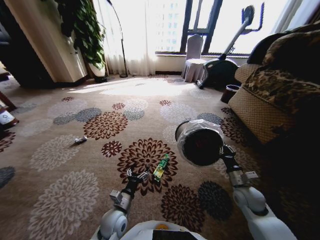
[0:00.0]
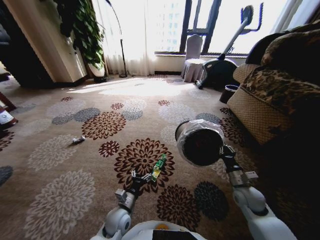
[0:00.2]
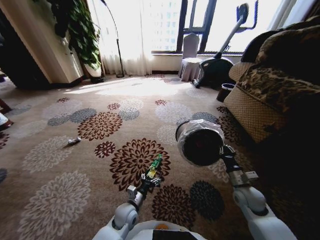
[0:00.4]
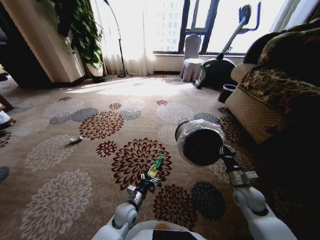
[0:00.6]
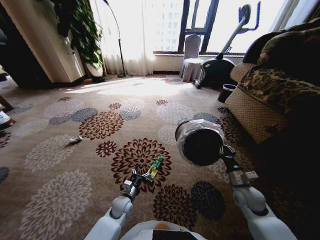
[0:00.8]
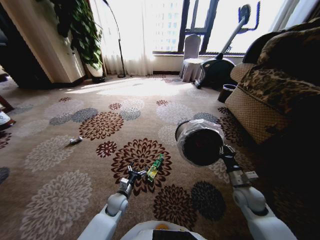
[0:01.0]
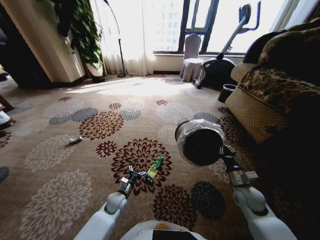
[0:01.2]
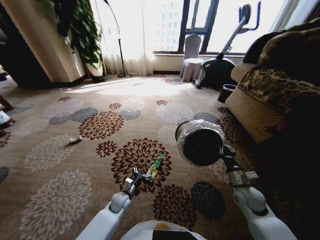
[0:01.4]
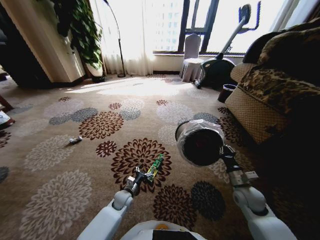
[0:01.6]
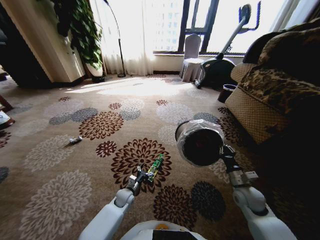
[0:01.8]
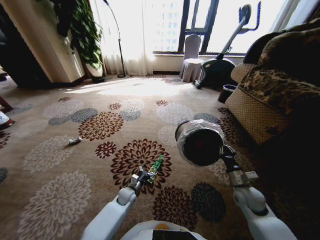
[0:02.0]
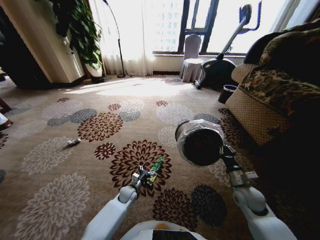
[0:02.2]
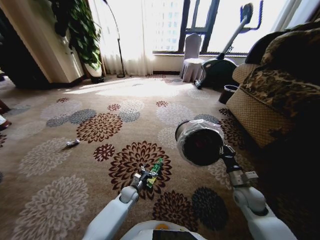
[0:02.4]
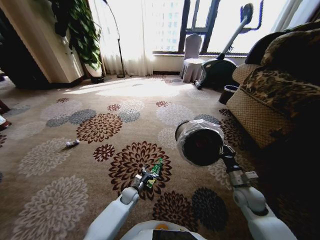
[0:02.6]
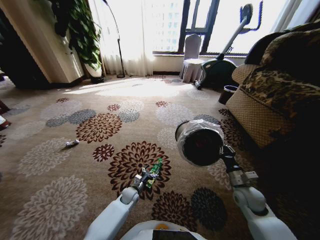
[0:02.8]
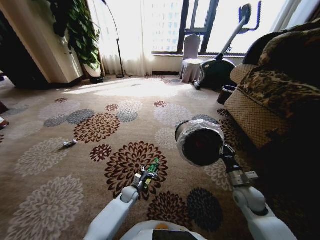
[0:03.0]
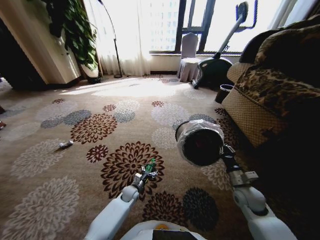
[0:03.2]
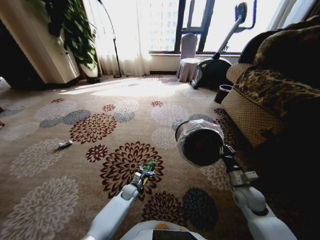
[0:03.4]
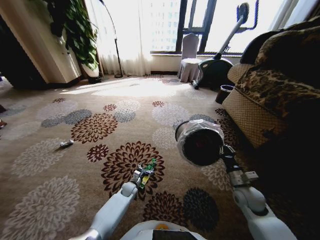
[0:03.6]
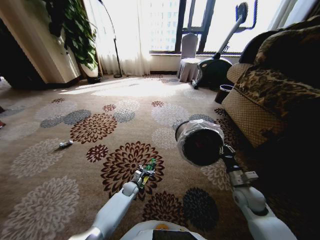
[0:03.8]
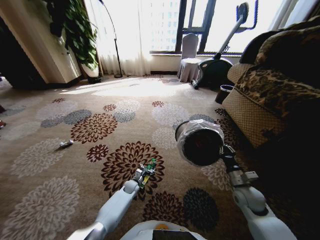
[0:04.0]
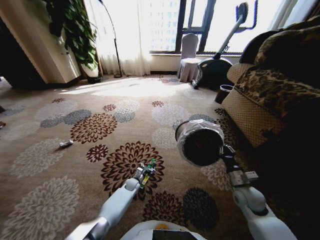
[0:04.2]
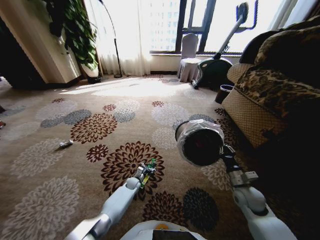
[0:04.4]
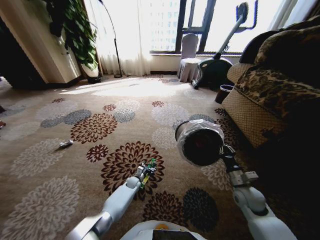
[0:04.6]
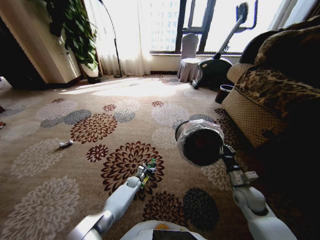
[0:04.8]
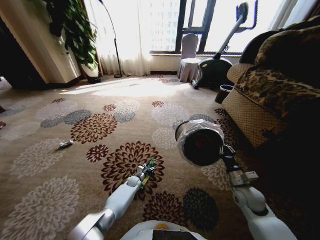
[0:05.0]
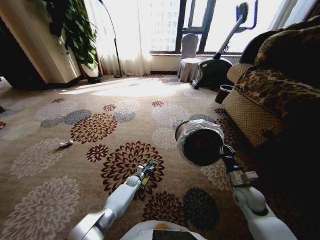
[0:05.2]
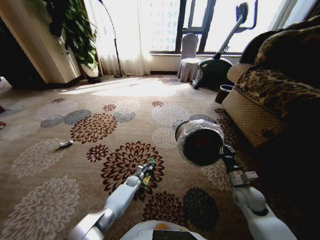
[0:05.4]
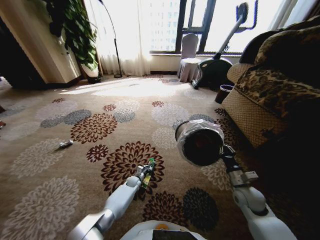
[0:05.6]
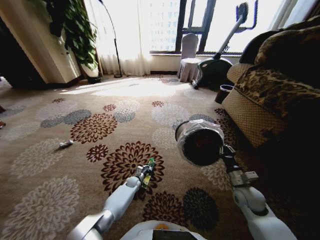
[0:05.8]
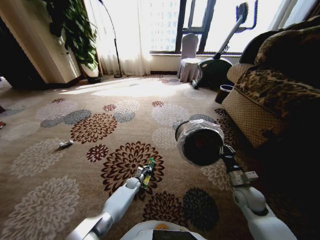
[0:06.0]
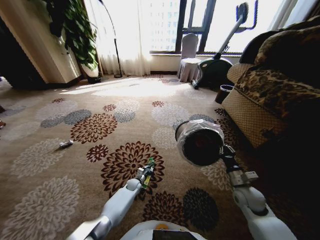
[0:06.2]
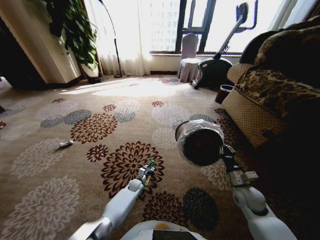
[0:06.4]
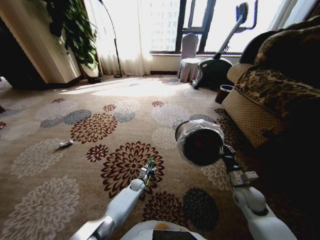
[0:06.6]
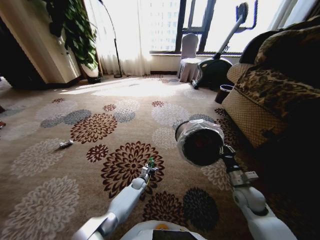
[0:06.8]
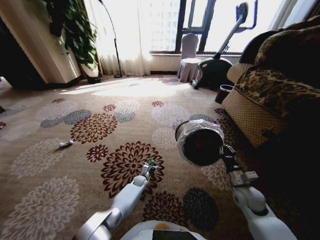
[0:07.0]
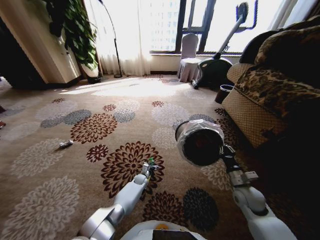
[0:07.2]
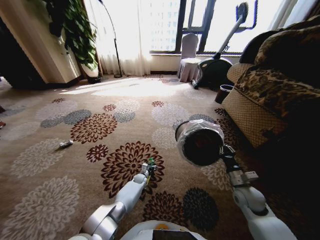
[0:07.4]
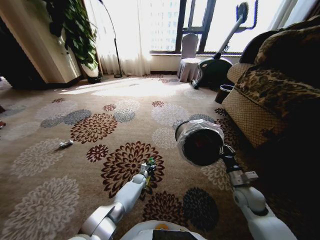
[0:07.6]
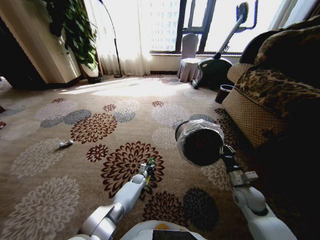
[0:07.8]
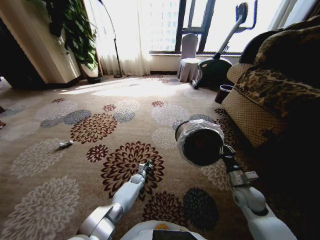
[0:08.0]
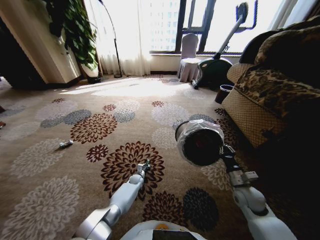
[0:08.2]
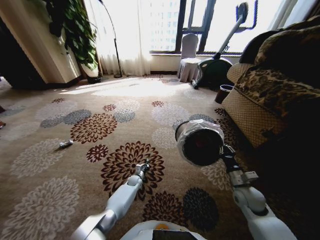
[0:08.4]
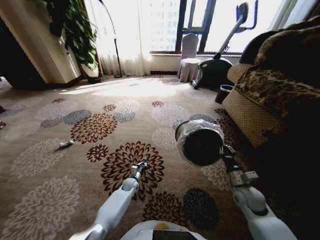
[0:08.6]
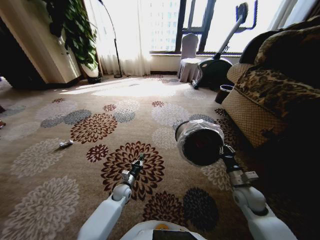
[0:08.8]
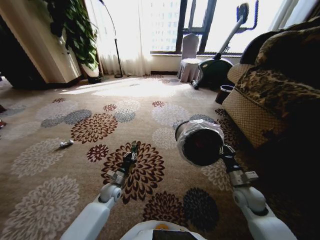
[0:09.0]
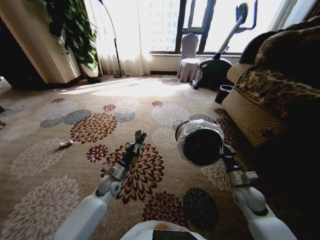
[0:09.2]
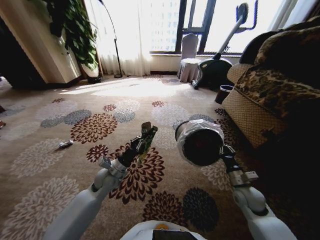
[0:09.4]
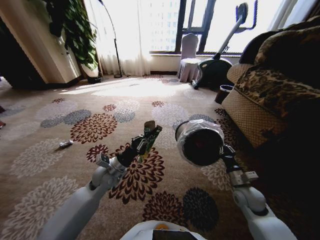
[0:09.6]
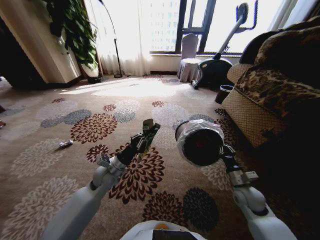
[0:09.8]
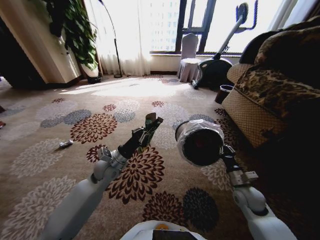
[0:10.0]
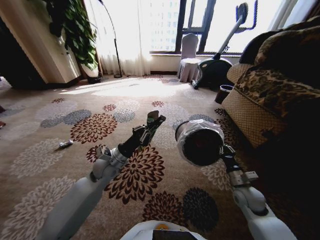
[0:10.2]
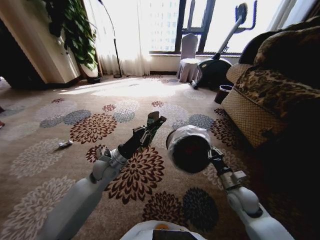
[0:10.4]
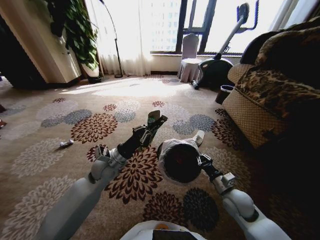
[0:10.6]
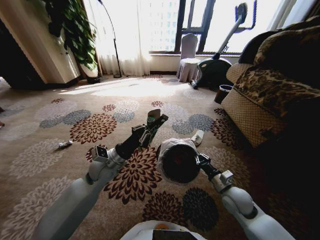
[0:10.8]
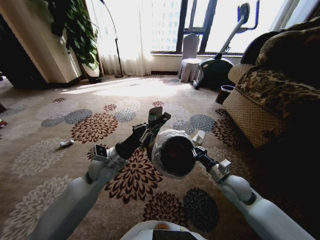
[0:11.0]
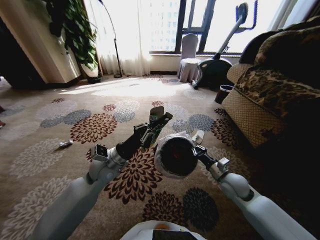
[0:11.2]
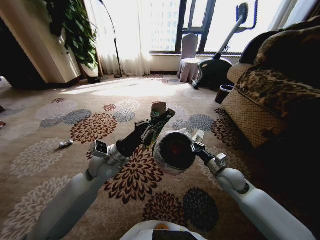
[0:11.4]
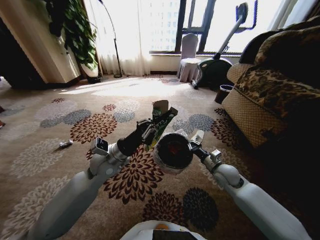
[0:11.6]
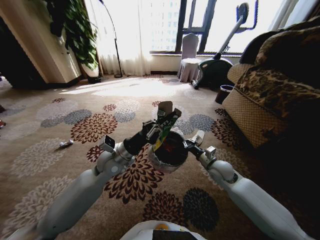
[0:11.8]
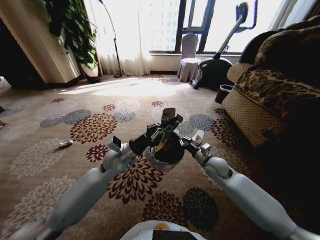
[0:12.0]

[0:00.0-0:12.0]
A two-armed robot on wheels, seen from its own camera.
Task of the whole recording: Pick up the trash from the ground and place it into the trash bin.
0:00.0 to 0:01.6: The left gripper travels forward and downward by some 15 cm.
0:01.6 to 0:03.0: The left gripper ends up some 5 cm from where it was.
0:03.0 to 0:04.4: The left gripper is displaced forward by about 5 cm.
0:04.4 to 0:06.0: The left gripper closes up.
0:06.0 to 0:07.6: The left gripper opens.
0:07.6 to 0:09.0: The left gripper travels upward, backward and to the left by approximately 20 cm, and closes.
0:09.0 to 0:10.4: The left gripper travels upward by some 20 cm.
0:10.4 to 0:12.0: The right gripper travels forward and to the left by some 15 cm.

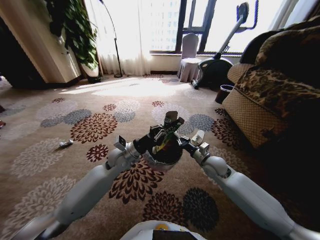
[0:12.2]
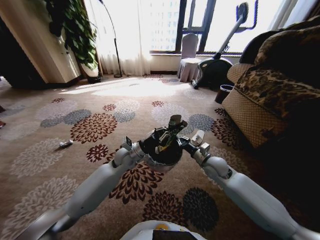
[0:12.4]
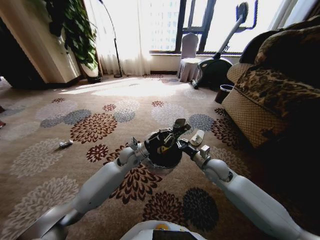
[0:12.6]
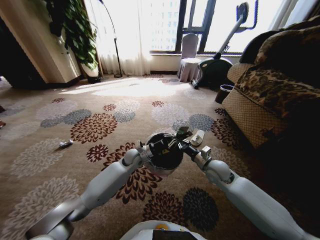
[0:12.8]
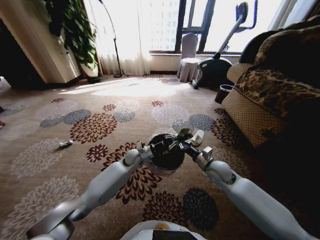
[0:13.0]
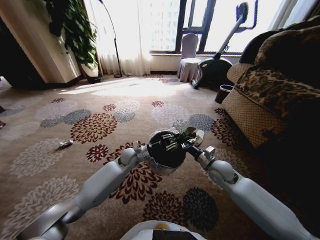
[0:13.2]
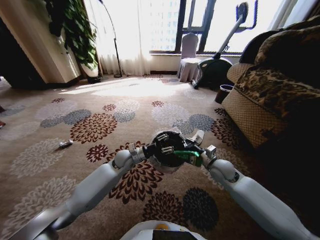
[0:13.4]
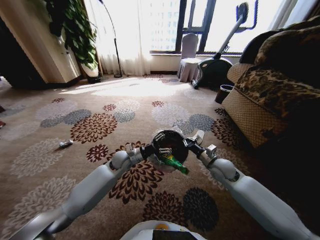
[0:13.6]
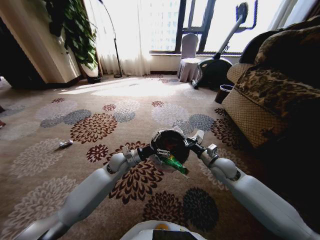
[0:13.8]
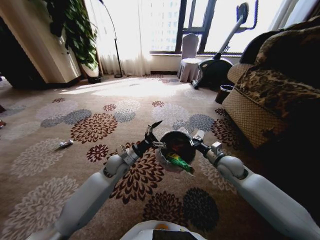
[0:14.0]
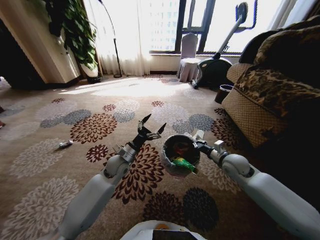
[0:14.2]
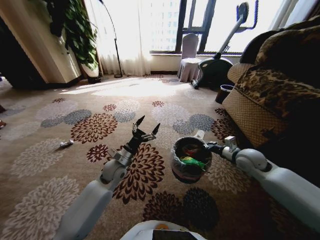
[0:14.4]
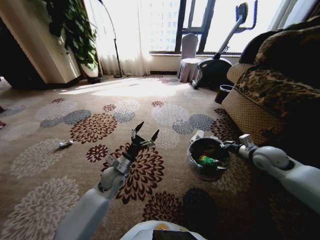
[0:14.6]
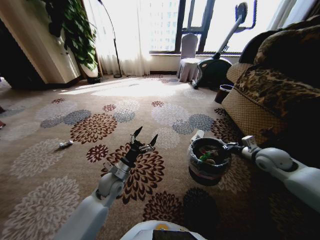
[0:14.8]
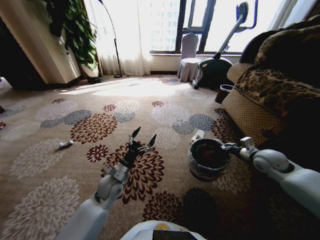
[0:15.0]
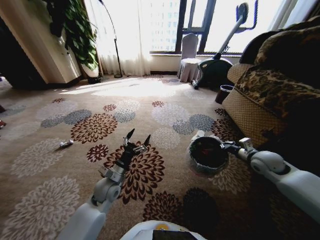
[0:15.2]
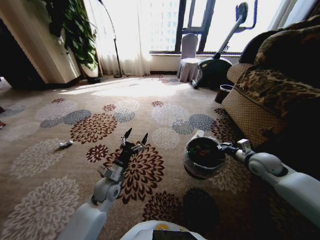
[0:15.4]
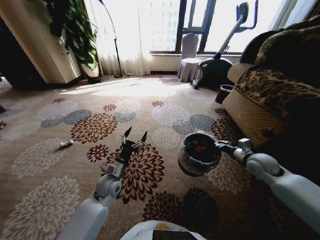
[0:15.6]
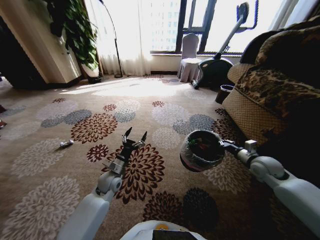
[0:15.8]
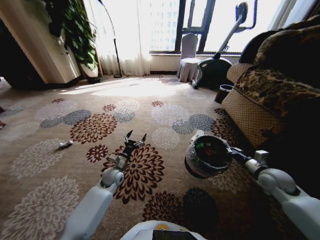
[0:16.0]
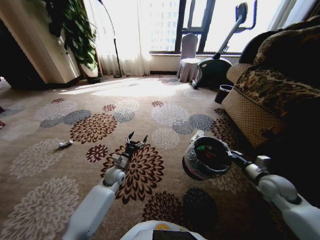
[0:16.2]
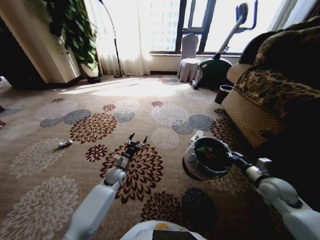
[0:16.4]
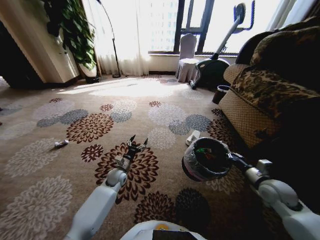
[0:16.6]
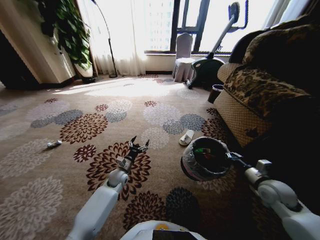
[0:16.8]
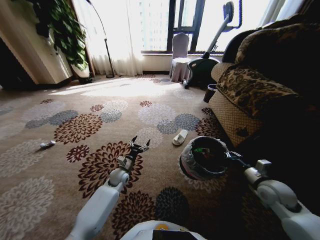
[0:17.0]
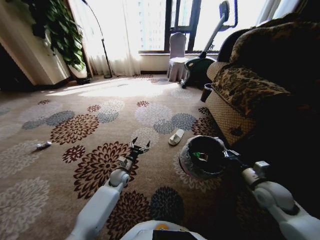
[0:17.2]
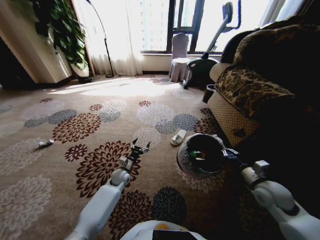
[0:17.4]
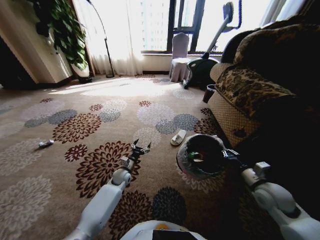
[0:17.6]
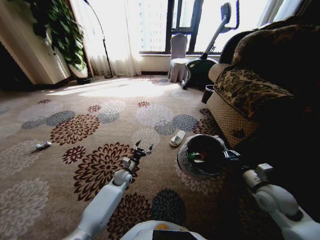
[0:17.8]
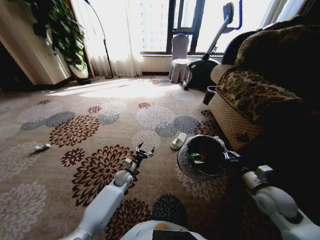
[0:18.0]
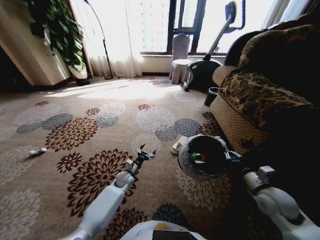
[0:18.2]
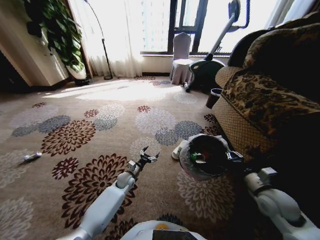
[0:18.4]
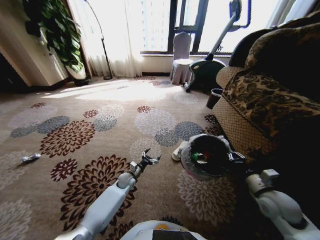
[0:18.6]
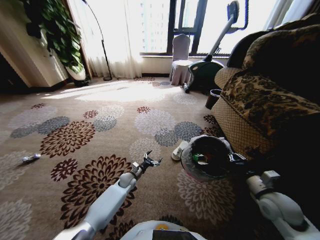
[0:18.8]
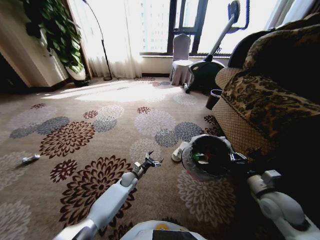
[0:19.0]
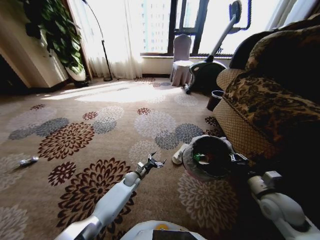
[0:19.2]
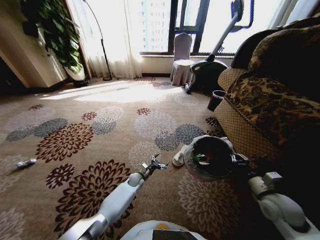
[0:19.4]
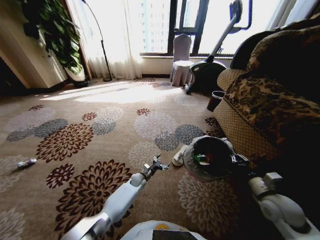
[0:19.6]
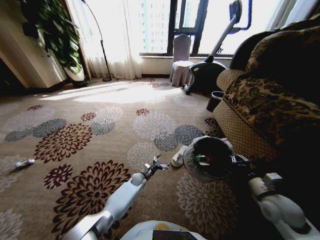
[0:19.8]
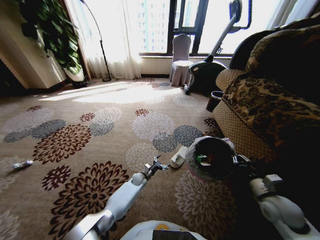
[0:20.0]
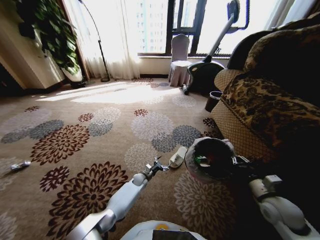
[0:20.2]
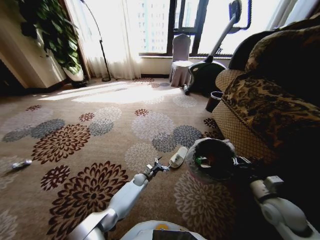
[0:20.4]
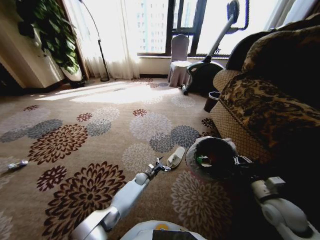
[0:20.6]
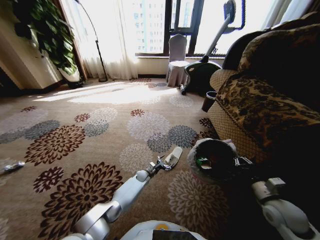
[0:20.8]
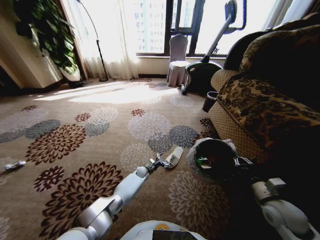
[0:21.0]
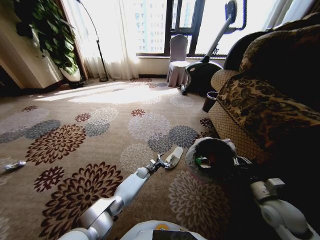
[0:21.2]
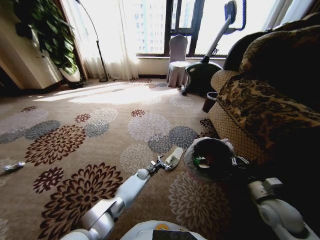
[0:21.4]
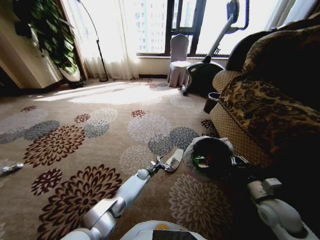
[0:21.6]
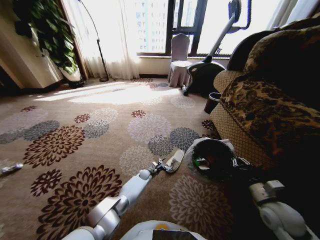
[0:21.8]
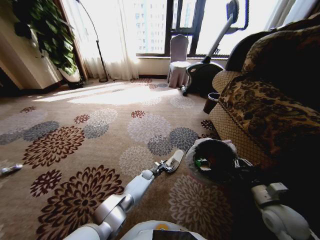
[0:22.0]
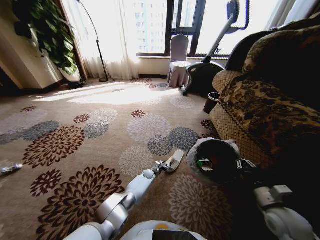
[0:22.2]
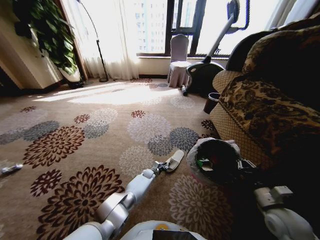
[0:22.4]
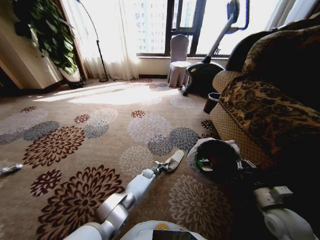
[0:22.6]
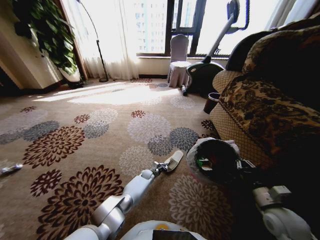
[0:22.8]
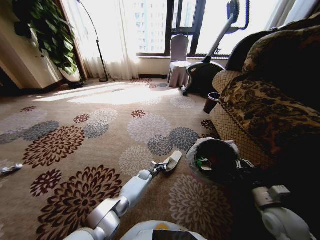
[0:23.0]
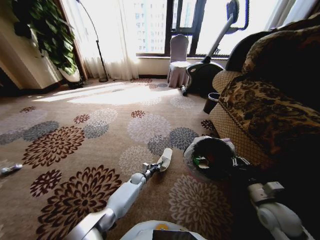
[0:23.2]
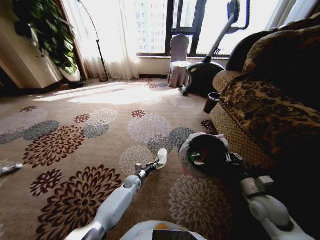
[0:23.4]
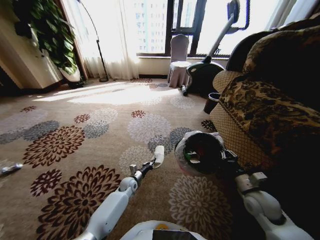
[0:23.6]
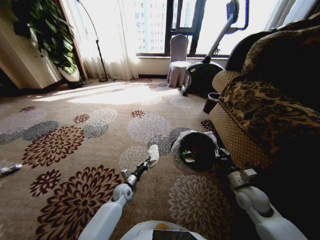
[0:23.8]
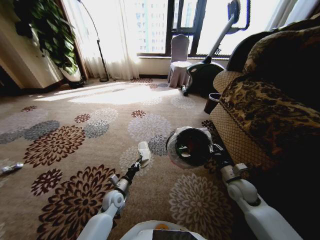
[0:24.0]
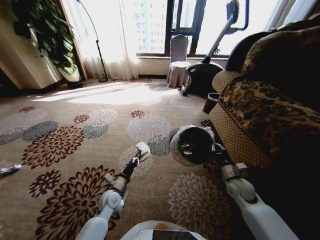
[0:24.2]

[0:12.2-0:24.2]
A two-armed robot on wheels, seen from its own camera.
Task of the whole recording: Pick up the trash from the ground and place it into the trash bin.
0:12.2 to 0:13.8: The left gripper heads downward, covering about 5 cm, and opens its fingers.
0:13.8 to 0:15.2: The left gripper travels backward by about 10 cm. Meanwhile the right gripper travels to the right by approximately 15 cm.
0:15.2 to 0:16.6: The right gripper is displaced backward and downward by approximately 10 cm, while the left gripper travels forward and downward by roughly 15 cm.
0:16.6 to 0:18.2: The left gripper heads downward, covering approximately 5 cm. The right gripper shifts by roughly 5 cm.
0:18.2 to 0:19.8: The left gripper moves downward and to the right, approximately 10 cm.
0:19.8 to 0:21.2: The left gripper changes place by approximately 5 cm.
0:21.2 to 0:22.6: The left gripper closes up.
0:22.6 to 0:24.2: The right gripper moves forward, downward and to the left, roughly 15 cm; the left gripper is displaced backward, upward and to the left by some 30 cm.
